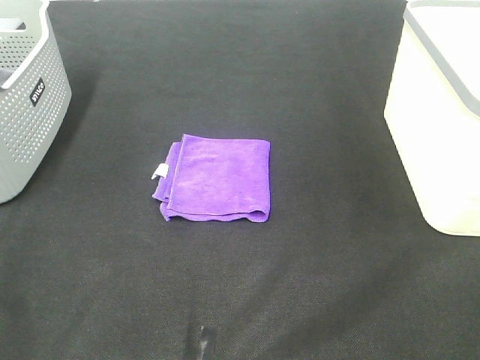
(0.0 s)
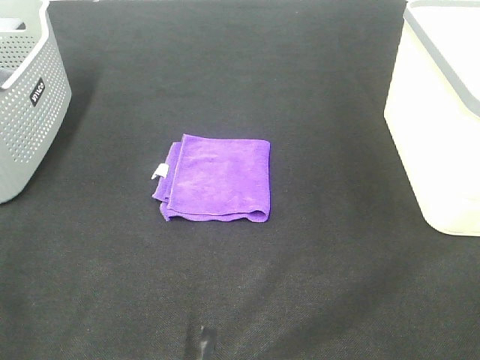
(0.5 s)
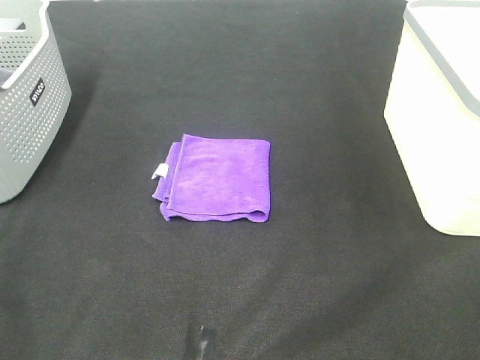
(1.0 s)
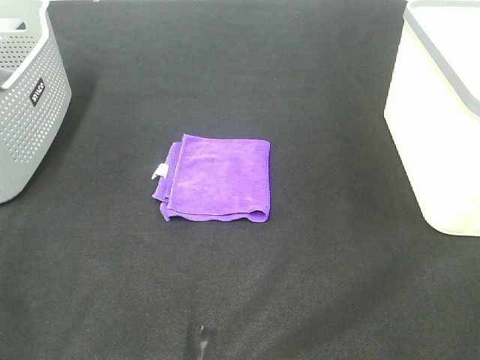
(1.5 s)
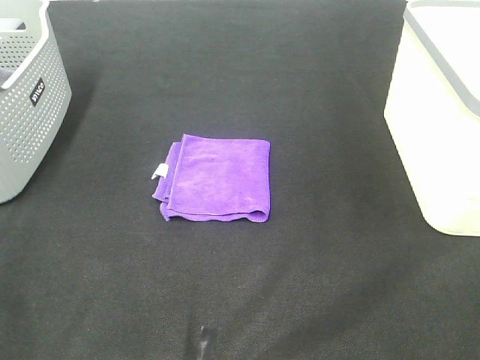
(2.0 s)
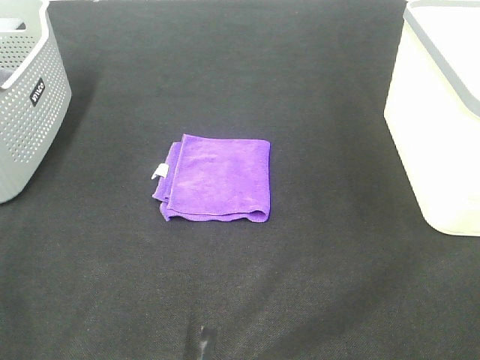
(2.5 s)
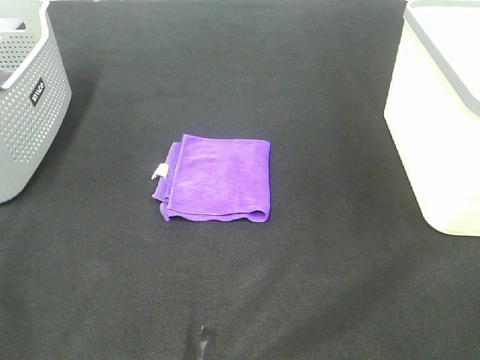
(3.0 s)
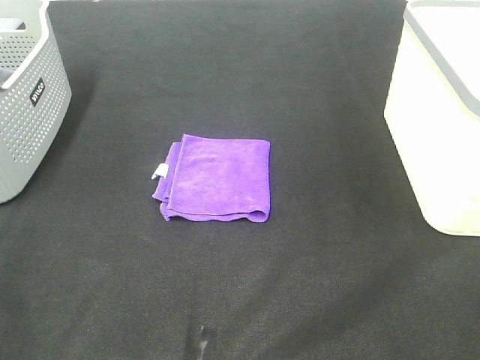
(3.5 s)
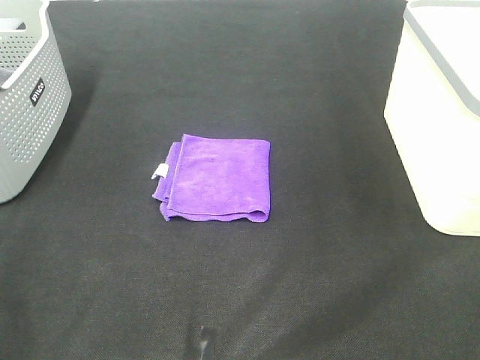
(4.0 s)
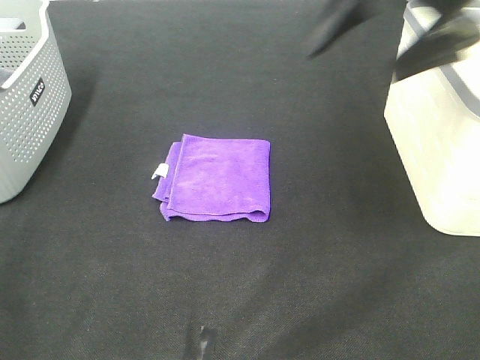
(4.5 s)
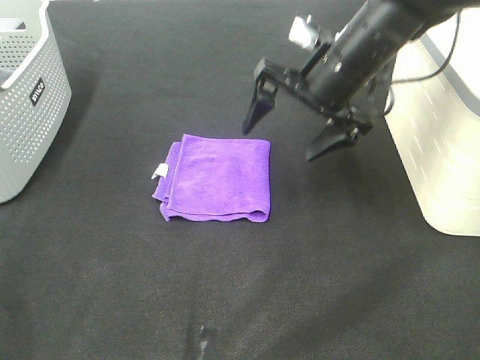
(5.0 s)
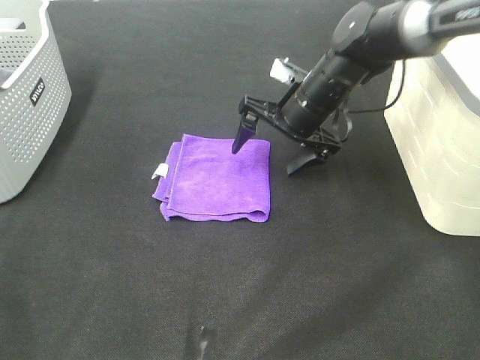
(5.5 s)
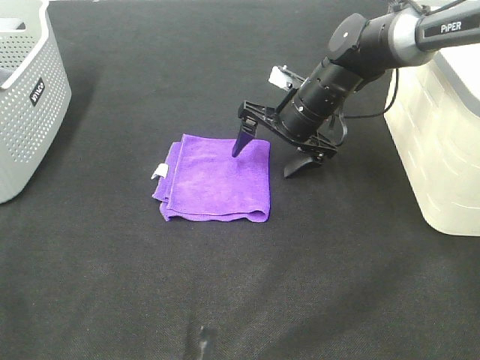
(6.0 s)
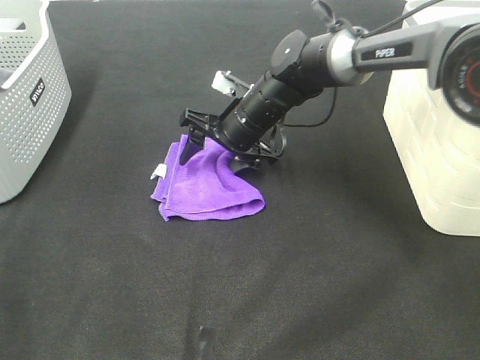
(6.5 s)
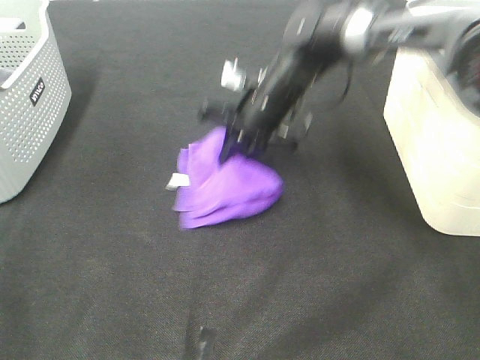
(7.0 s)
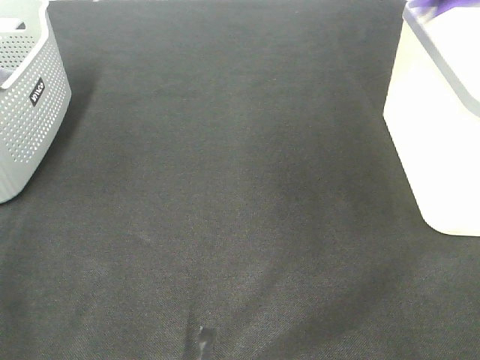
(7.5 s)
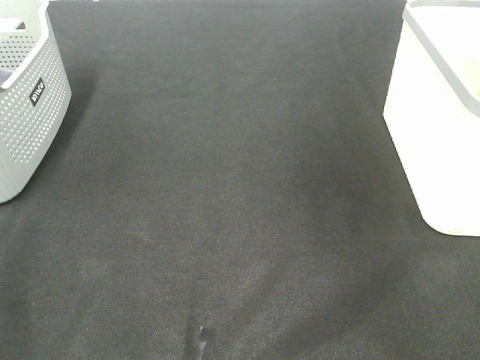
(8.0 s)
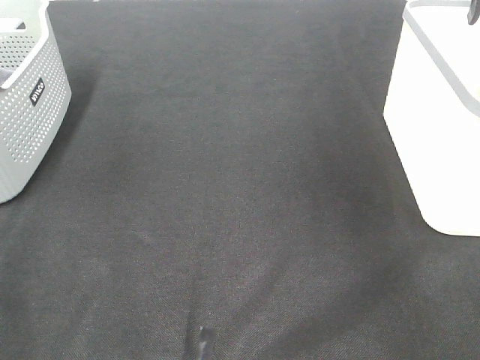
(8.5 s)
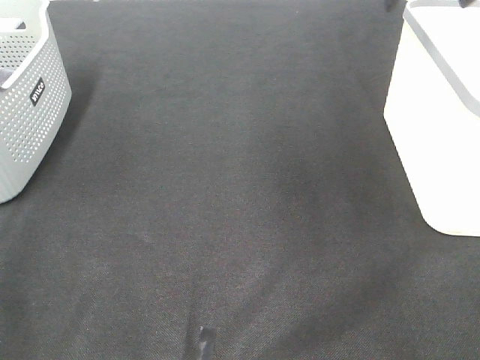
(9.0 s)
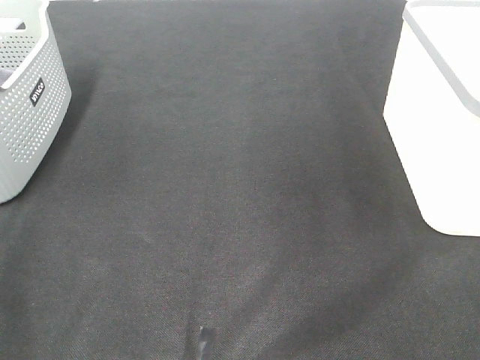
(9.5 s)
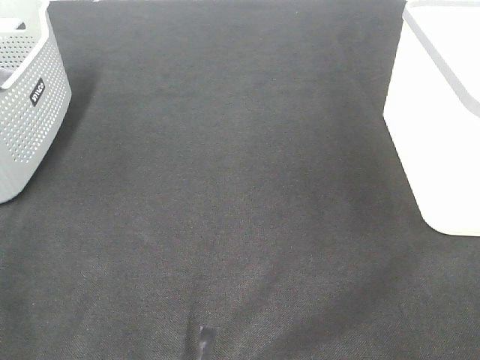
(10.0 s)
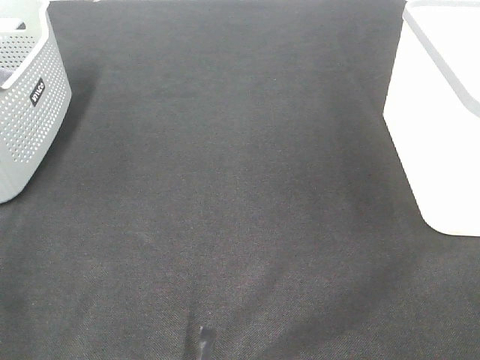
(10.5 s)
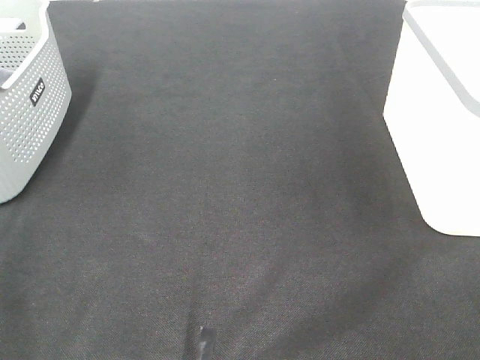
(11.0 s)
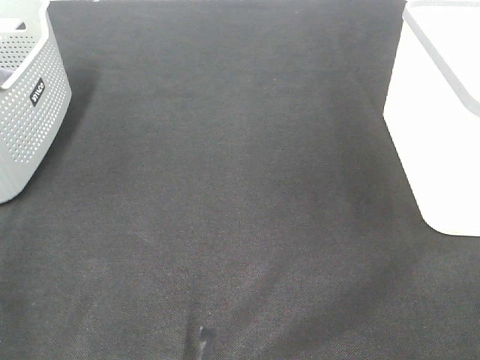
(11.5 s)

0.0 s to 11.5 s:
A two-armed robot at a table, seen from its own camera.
Step, 0.0 to 6.5 s: Right hand: grab the folded purple towel.
Step, 7.0 to 8.0 s: Right hand: place the purple towel in right basket.
0.0 to 2.0 s: Both grippers stay put.
4.0 to 6.0 s: The right gripper is displaced forward, downward and to the left by approximately 50 cm.
6.0 to 7.5 s: The right gripper travels upward and to the right by roughly 35 cm, and closes.
7.5 to 9.5 s: The right gripper travels backward by approximately 20 cm, and opens its fingers.

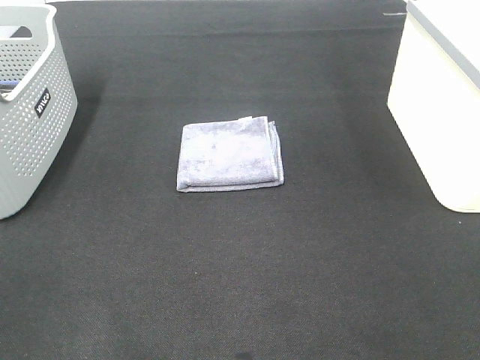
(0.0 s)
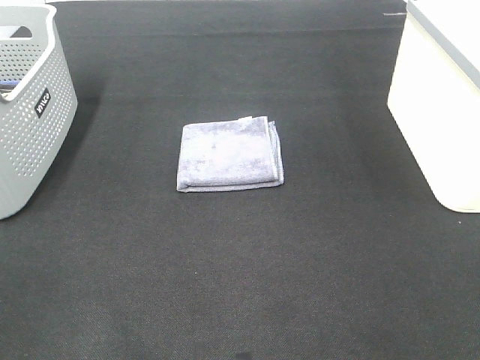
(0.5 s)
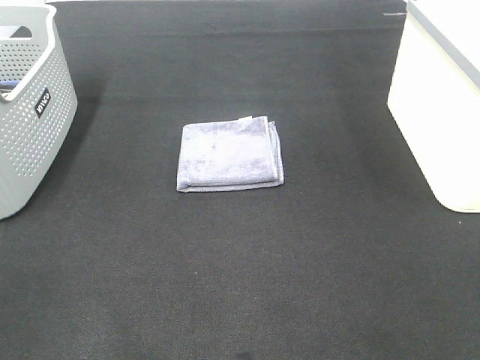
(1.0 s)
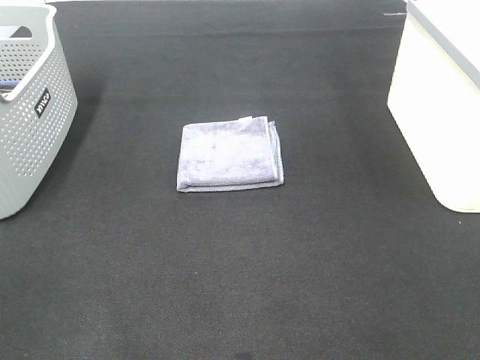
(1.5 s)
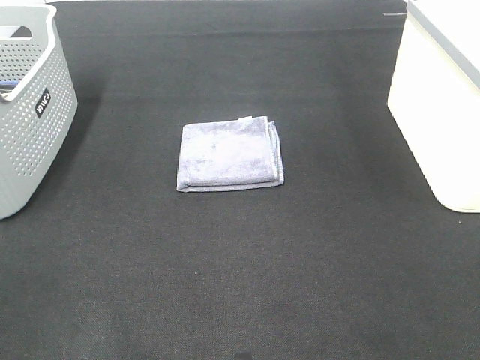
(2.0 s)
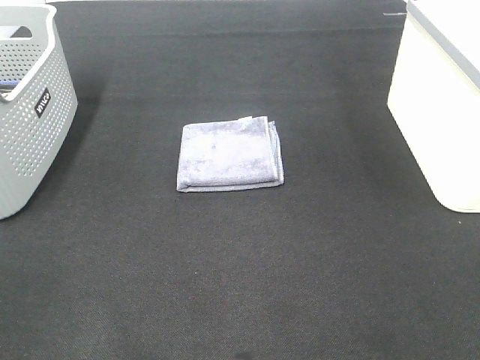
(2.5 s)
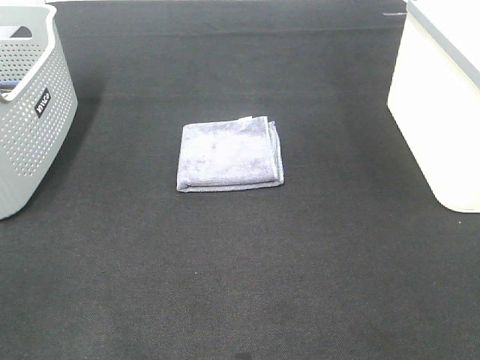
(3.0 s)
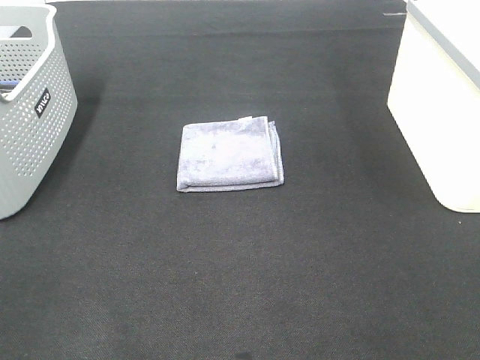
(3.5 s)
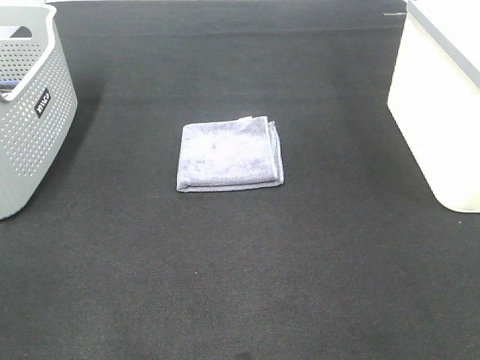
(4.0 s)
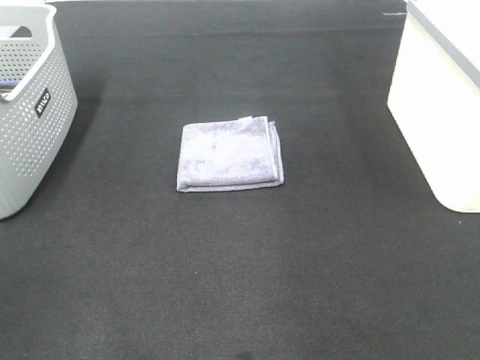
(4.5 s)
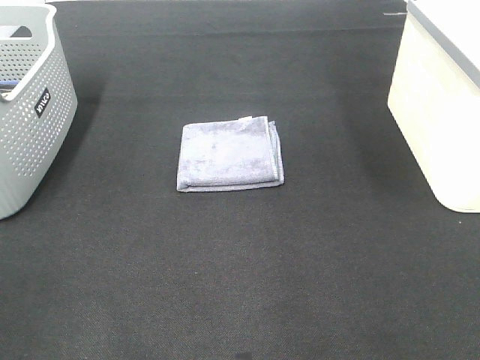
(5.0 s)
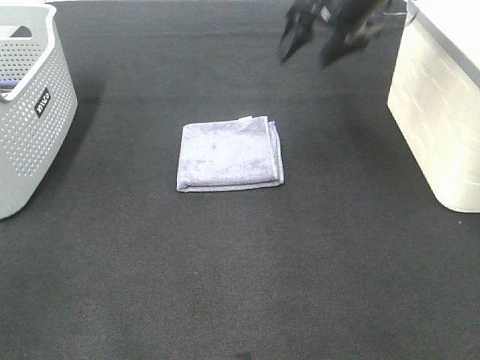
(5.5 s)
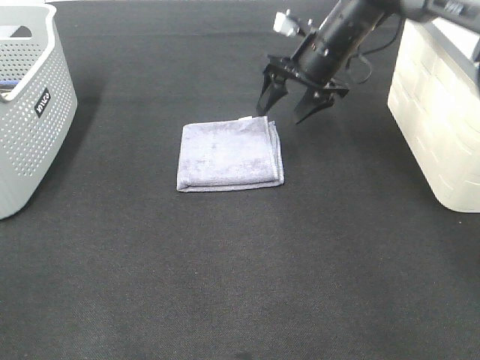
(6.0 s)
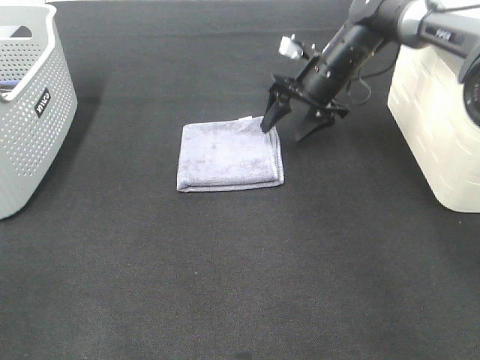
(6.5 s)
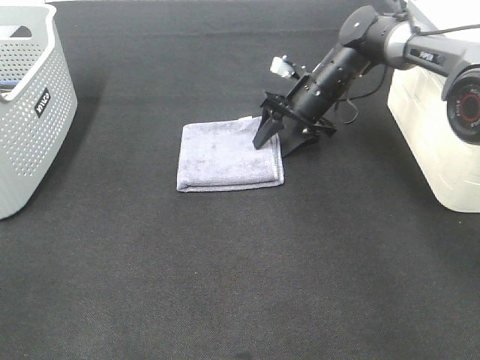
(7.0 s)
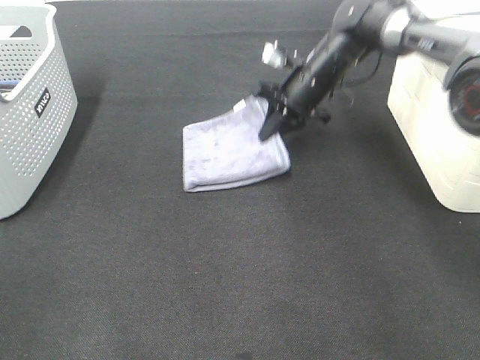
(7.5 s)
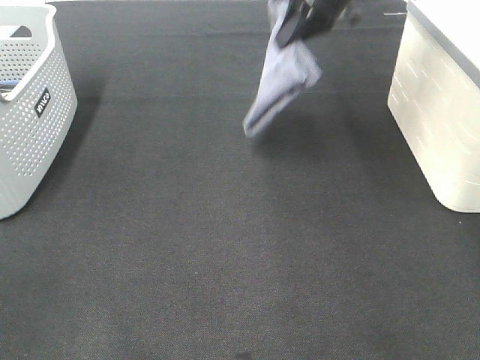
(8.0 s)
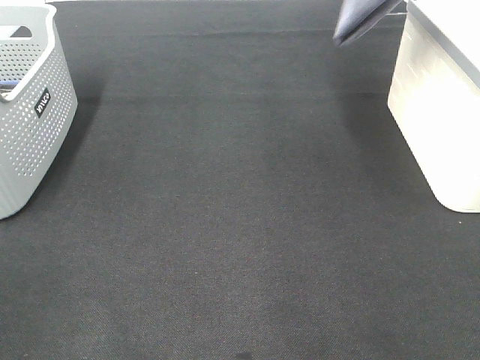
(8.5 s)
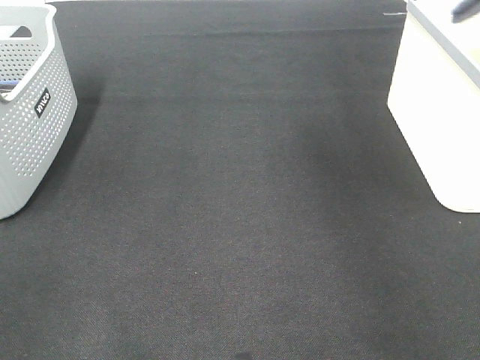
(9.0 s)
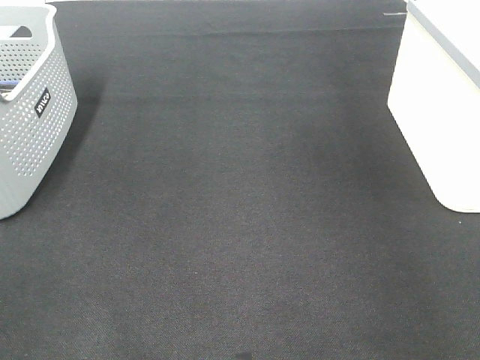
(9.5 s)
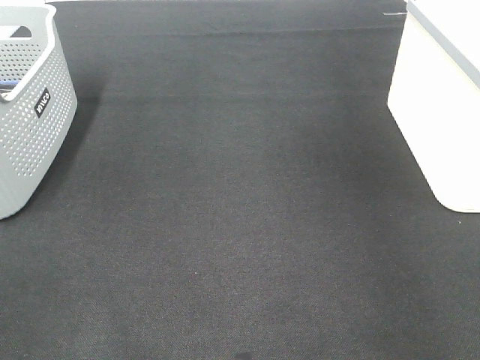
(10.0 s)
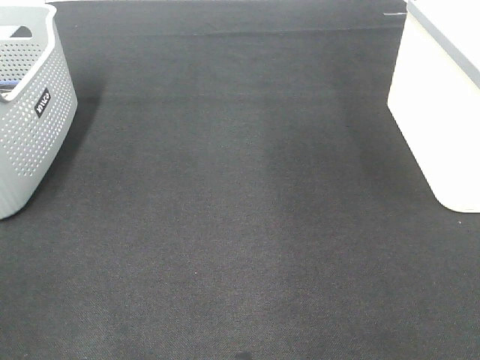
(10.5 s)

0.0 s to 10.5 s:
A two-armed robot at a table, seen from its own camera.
Step, 0.0 to 7.0 s: Right hand: grab the folded grey towel.
Step, 7.5 to 9.5 s: Right hand: place the grey towel in right basket.
0.0 to 2.0 s: Both grippers stay put.
4.0 to 6.5 s: The right gripper shifts roughly 50 cm forward and downward.
6.5 to 8.5 s: The right gripper shifts about 30 cm upward, and closes.
8.5 to 10.5 s: The right gripper moves backward, some 10 cm, reaches about 20 cm to the right, then returns, and opens up.

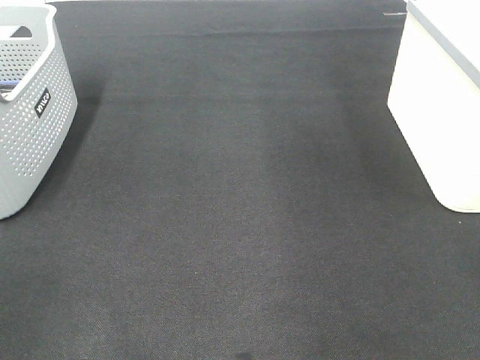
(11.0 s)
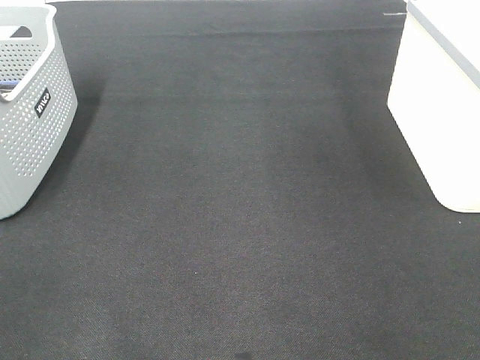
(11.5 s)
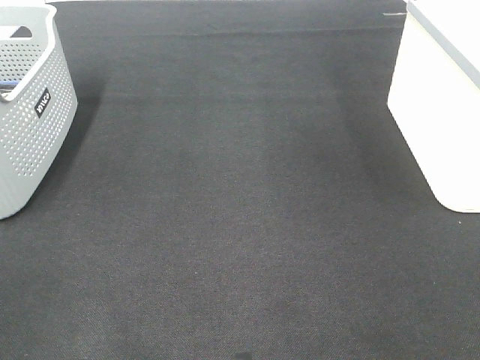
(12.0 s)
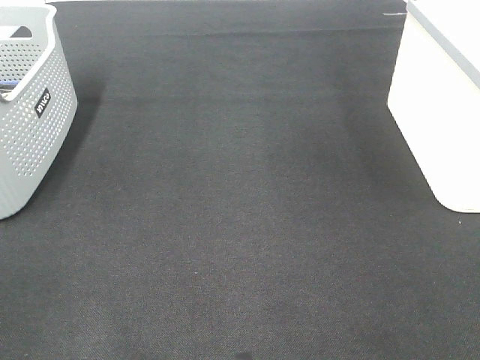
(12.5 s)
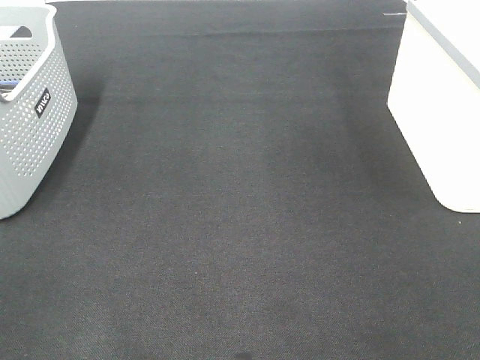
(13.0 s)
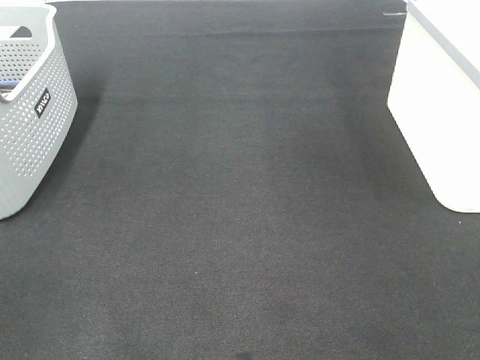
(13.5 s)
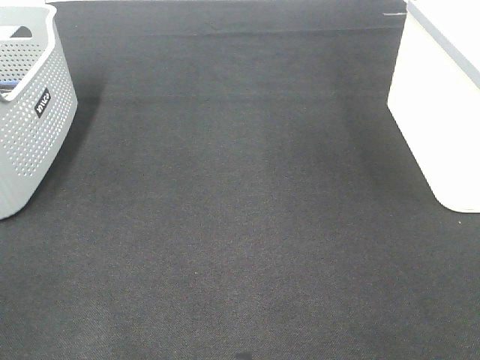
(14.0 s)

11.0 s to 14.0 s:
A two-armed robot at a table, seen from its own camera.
12.5 to 14.0 s: Both grippers stay about where they are.

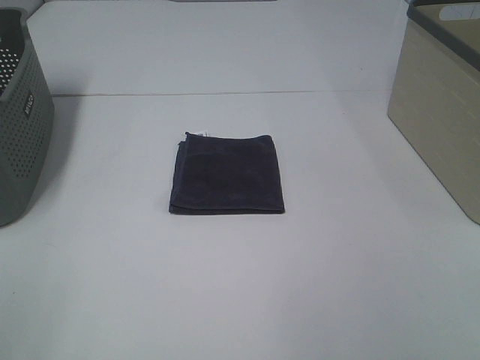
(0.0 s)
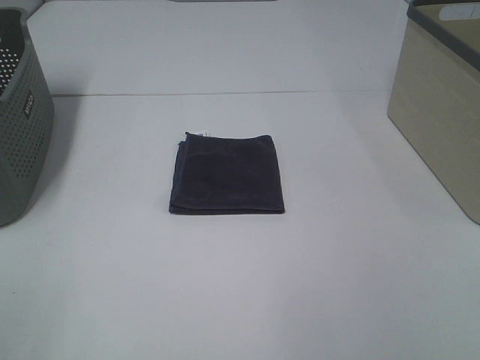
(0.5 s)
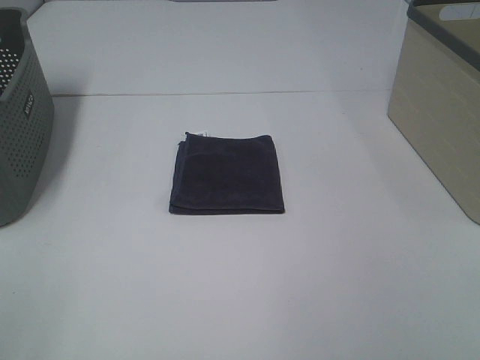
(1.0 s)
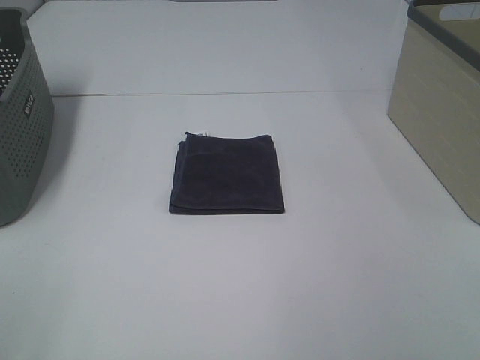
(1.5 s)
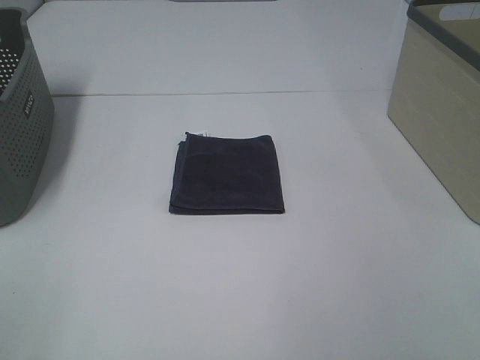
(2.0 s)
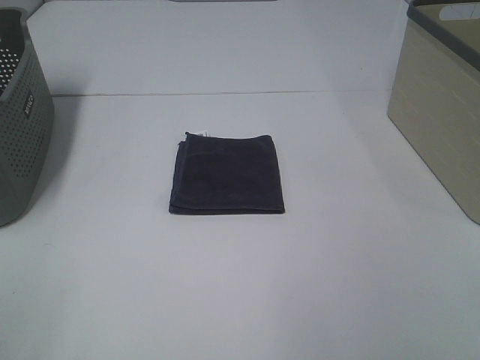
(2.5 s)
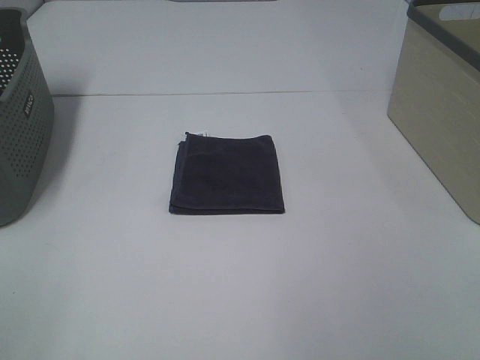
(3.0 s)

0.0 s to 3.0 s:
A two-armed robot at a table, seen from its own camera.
0.0 to 3.0 s: The two grippers keep their place.
